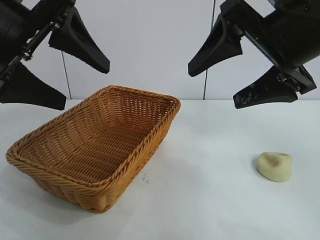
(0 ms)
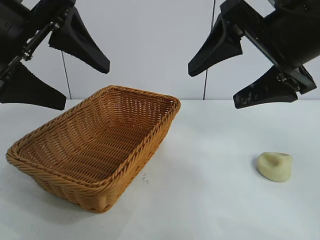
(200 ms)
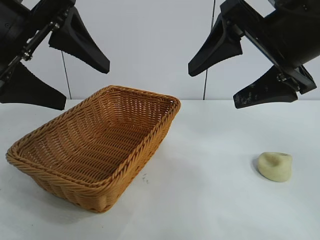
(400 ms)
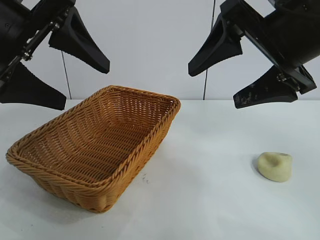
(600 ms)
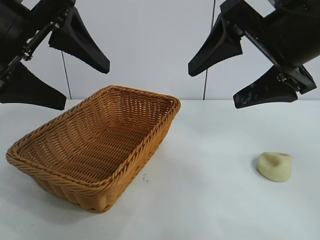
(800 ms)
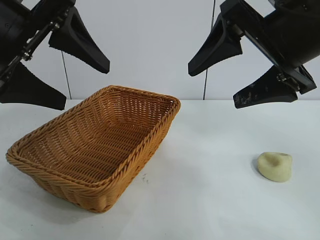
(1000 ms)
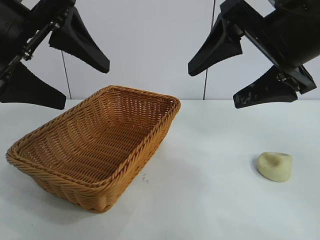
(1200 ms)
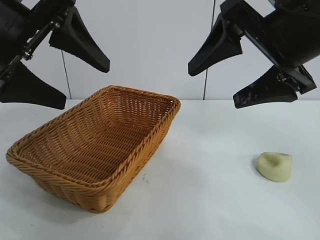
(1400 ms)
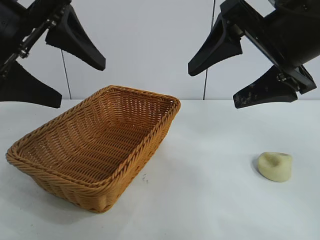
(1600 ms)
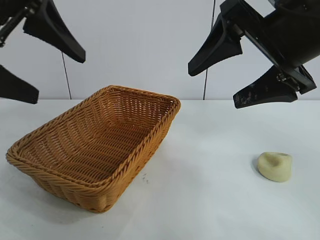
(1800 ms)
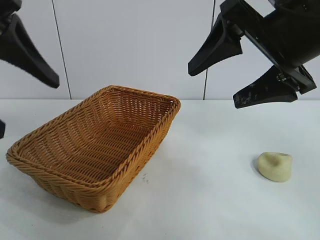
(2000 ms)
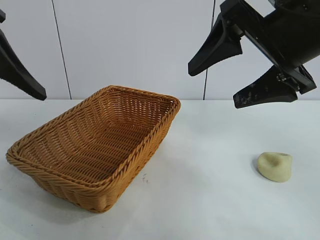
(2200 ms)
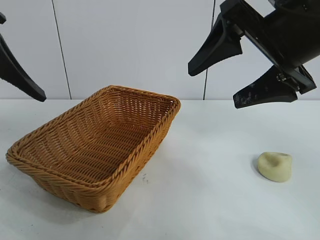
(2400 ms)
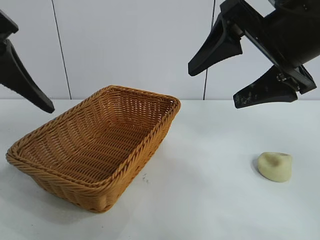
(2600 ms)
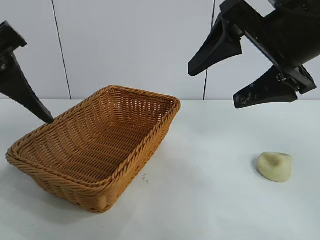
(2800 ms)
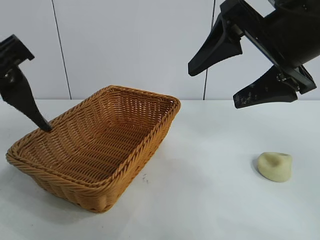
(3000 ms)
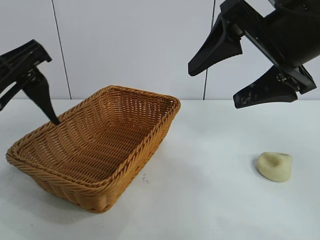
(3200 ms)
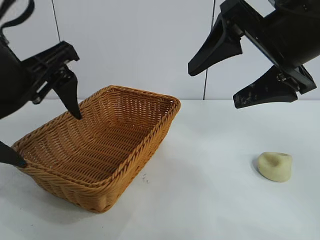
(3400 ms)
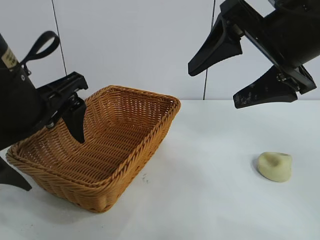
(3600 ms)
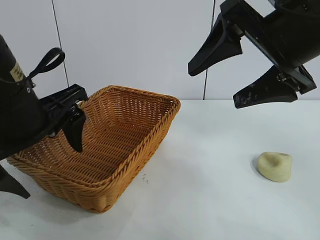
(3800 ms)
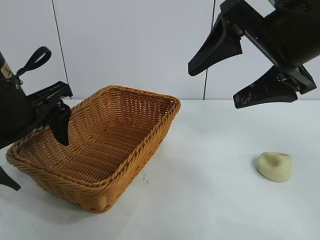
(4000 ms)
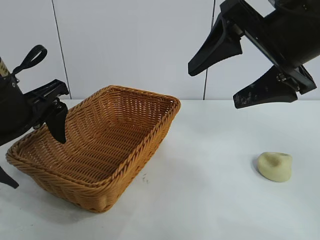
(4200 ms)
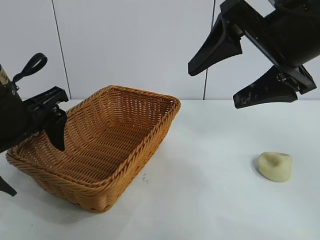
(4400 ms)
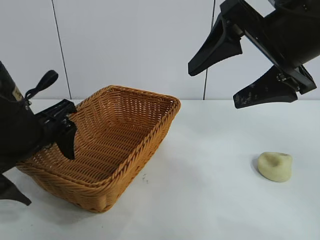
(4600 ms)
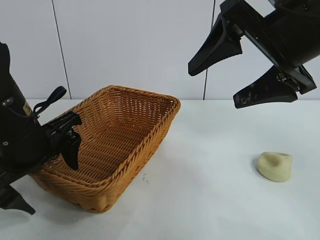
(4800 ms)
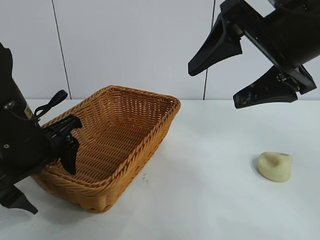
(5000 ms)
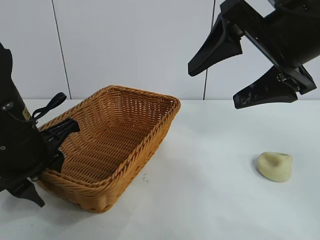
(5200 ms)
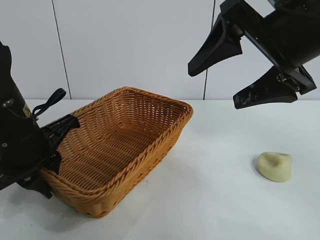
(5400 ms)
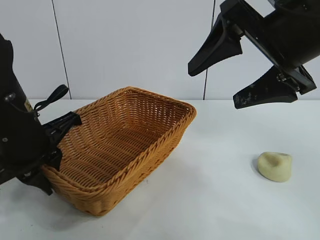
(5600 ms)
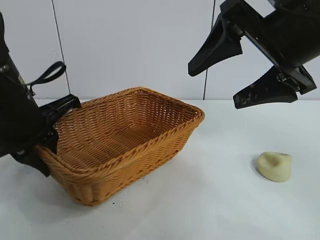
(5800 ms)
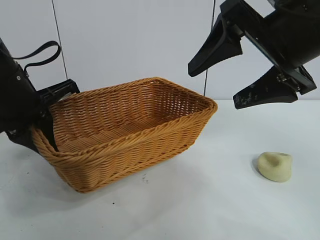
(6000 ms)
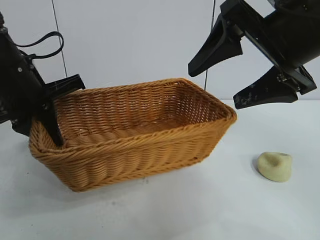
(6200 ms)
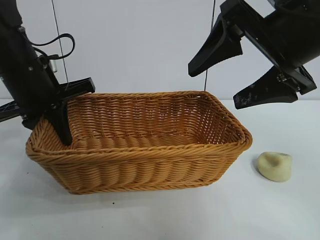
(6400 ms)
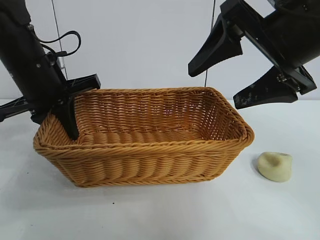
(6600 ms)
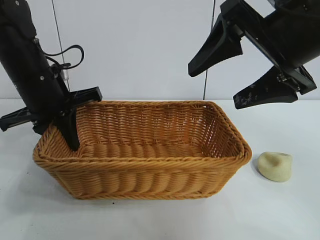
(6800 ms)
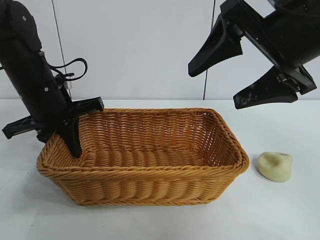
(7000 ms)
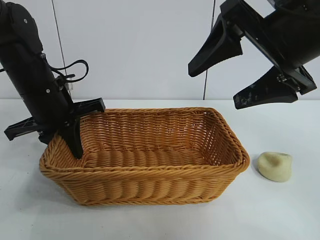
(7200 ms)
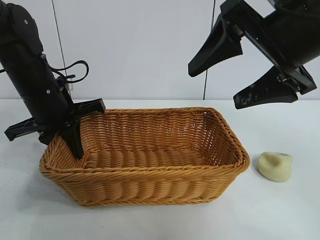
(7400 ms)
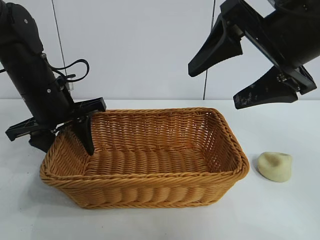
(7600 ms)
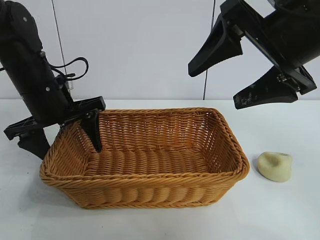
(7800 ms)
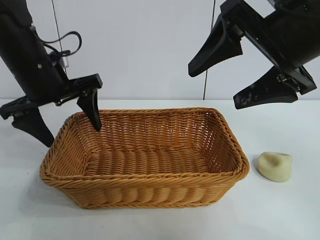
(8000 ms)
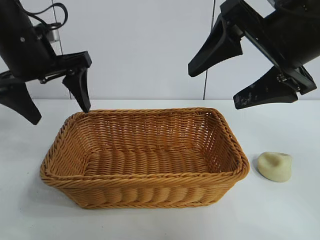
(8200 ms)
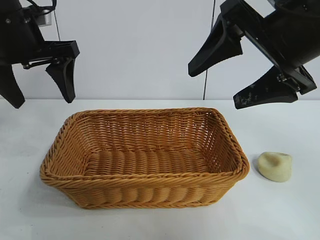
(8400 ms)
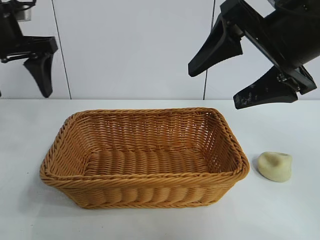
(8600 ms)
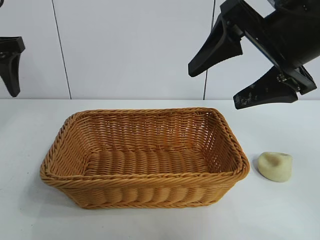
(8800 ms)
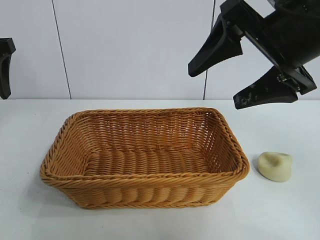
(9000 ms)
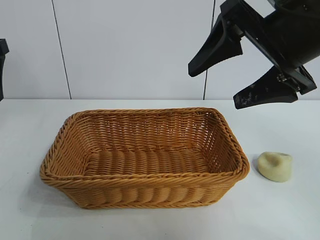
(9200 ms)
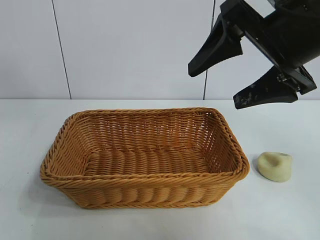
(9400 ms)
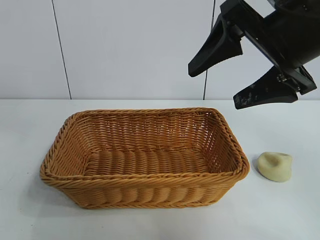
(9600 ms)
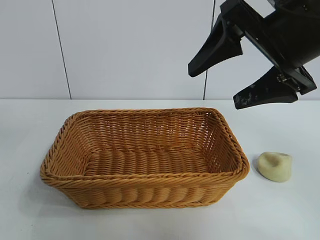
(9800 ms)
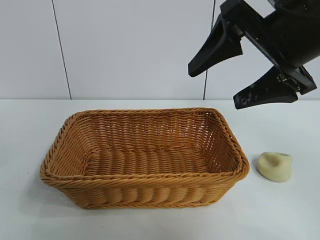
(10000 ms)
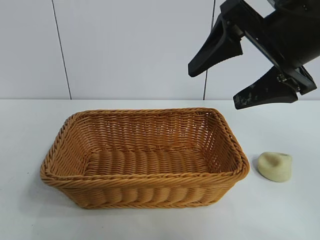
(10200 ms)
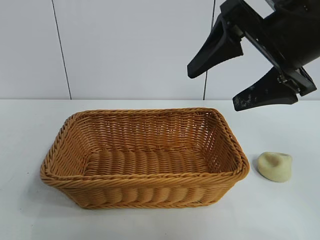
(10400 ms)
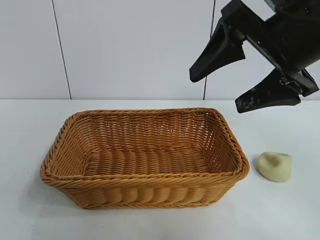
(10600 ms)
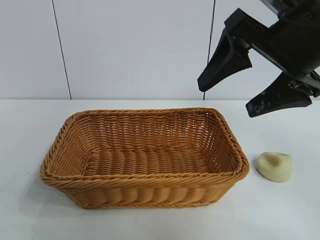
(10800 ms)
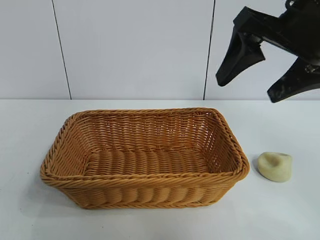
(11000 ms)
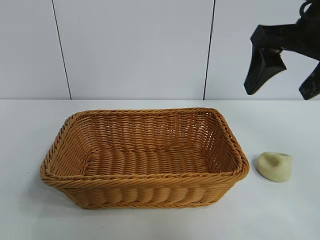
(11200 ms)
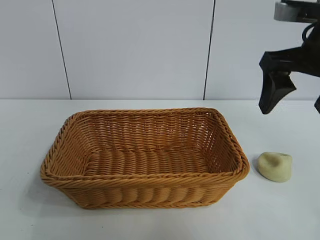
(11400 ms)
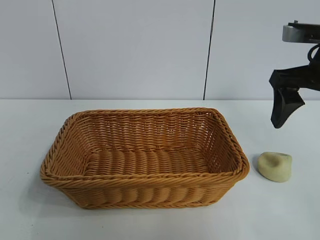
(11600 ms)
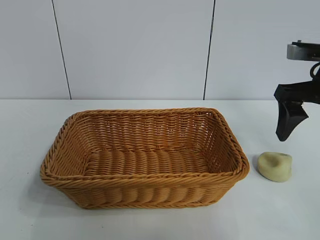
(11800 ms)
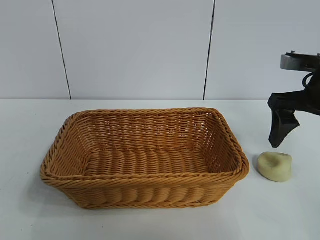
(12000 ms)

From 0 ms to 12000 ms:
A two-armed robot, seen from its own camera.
Task of the whole recording: pick up the egg yolk pastry and put it into the basket.
Step, from 1600 ms to 5200 ms: Grasp the basket with left gripper.
Step, from 5600 ms to 7800 ms: Place the basket in the center of view with left gripper.

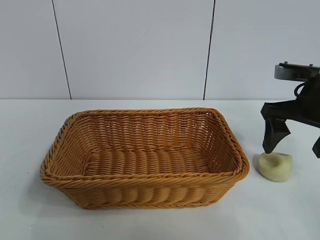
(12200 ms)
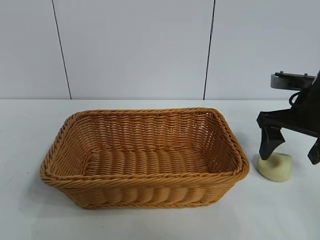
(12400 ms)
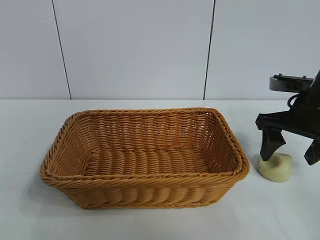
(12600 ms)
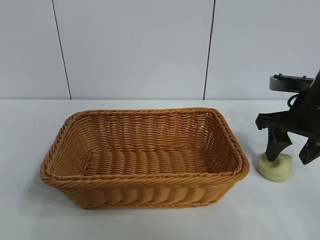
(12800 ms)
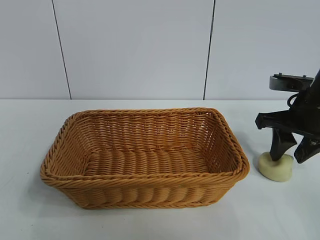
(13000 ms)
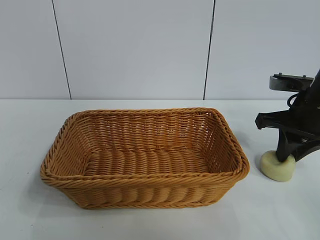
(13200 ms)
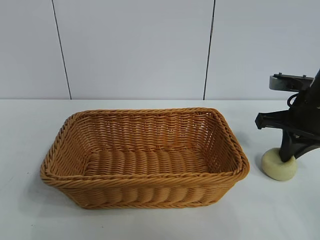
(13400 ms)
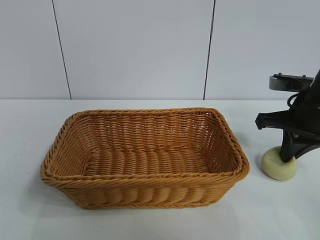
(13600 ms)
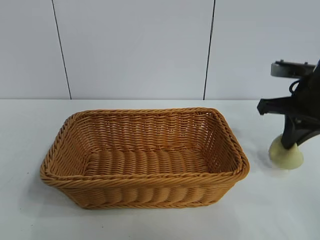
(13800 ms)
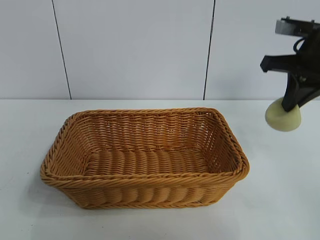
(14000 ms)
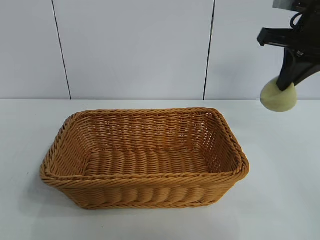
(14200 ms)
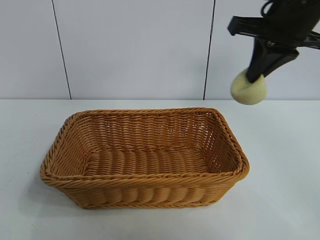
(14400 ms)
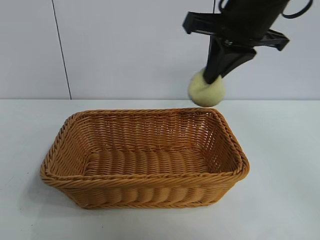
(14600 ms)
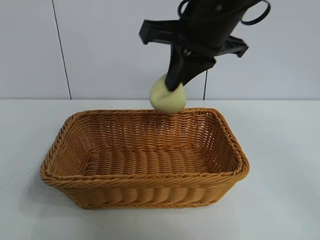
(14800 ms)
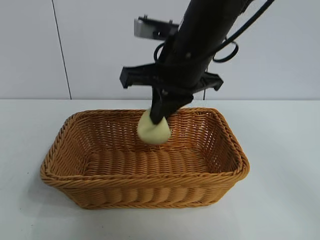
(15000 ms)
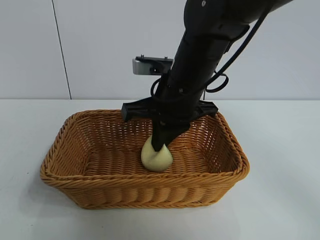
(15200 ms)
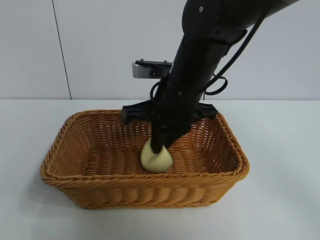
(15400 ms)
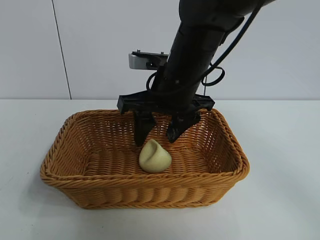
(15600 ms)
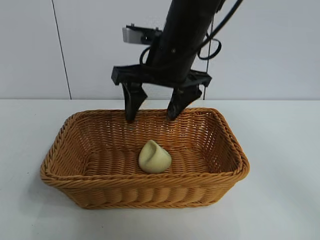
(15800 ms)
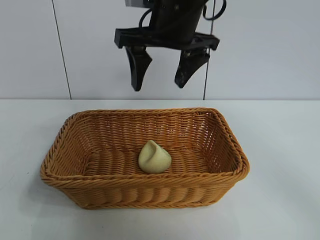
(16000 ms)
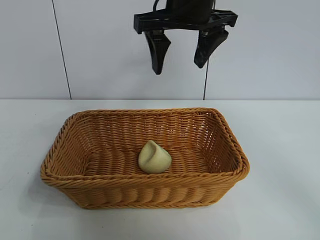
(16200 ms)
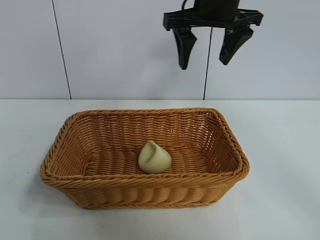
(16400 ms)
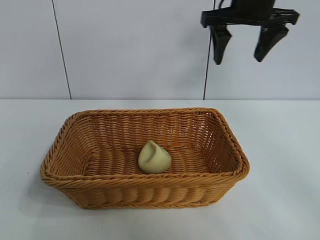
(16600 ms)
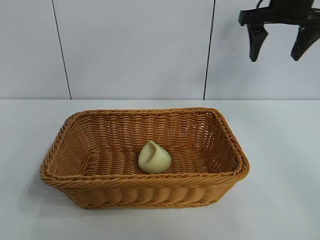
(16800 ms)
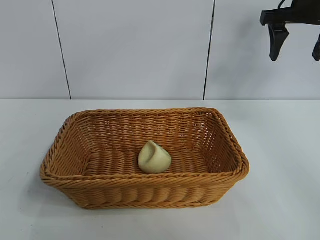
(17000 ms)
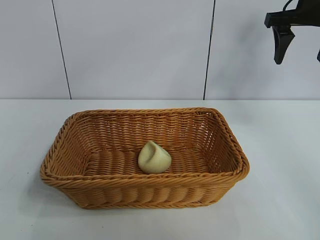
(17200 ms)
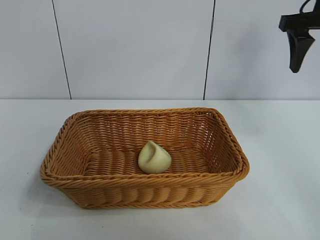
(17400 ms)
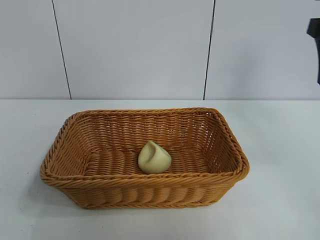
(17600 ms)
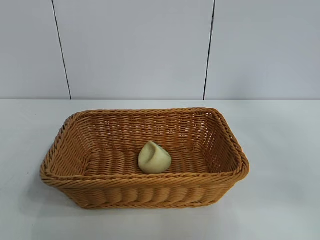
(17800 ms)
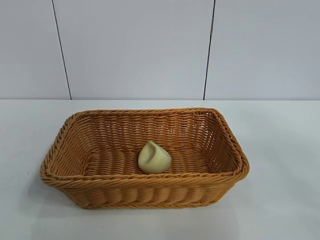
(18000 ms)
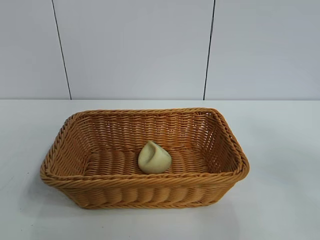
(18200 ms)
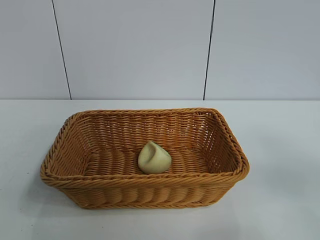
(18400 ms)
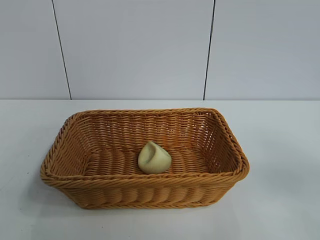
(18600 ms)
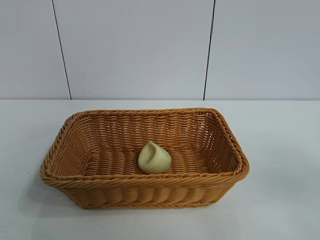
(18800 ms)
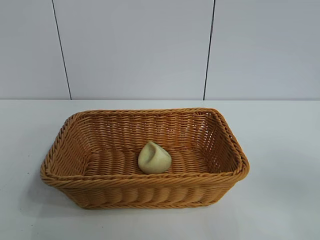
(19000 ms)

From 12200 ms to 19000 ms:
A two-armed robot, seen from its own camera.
Task of the whole recording: pick up the egg yolk pastry and put it into the basket.
Step, from 13400 ms to 15600 ms: Place the egg yolk pastry in the basket with right gripper.

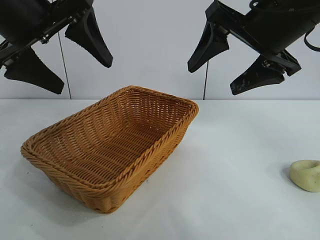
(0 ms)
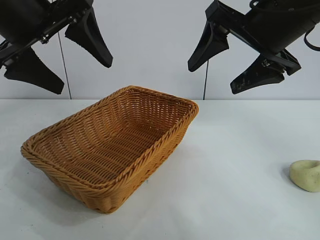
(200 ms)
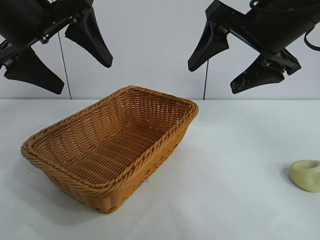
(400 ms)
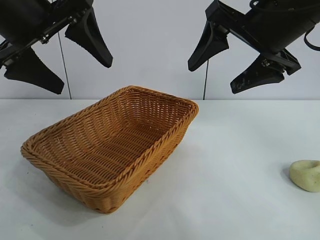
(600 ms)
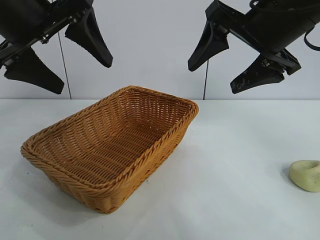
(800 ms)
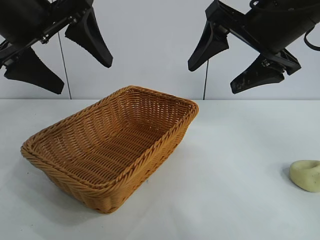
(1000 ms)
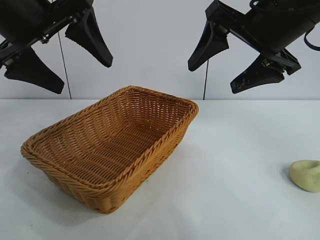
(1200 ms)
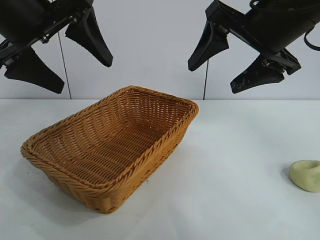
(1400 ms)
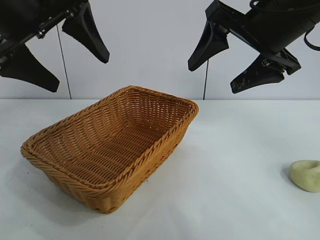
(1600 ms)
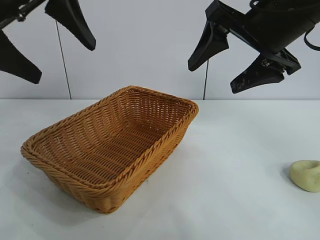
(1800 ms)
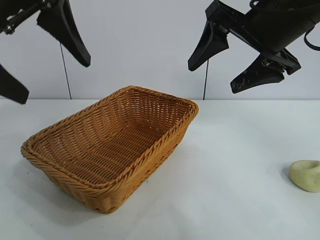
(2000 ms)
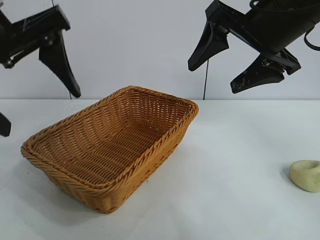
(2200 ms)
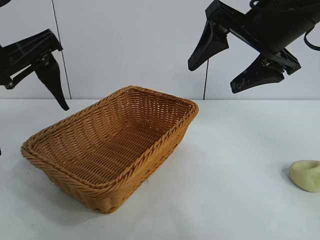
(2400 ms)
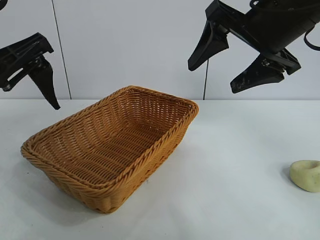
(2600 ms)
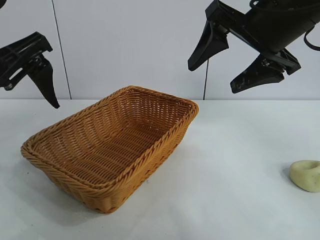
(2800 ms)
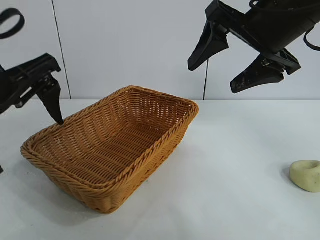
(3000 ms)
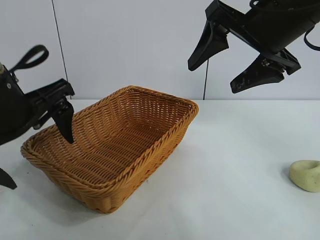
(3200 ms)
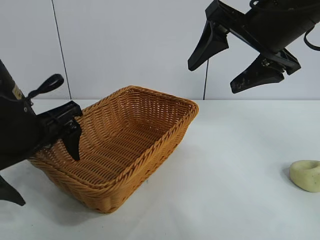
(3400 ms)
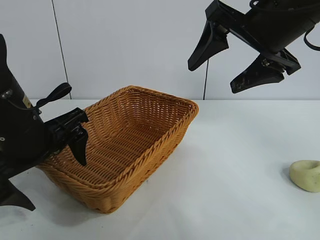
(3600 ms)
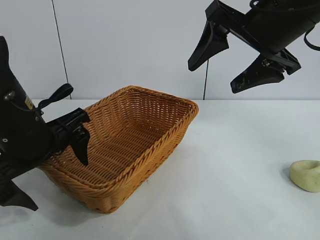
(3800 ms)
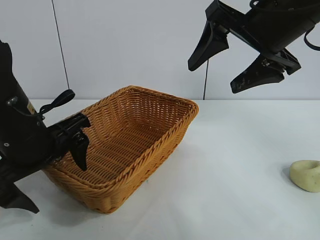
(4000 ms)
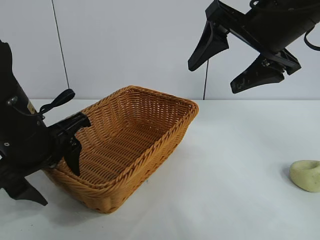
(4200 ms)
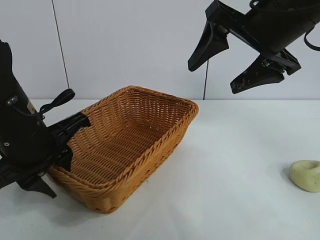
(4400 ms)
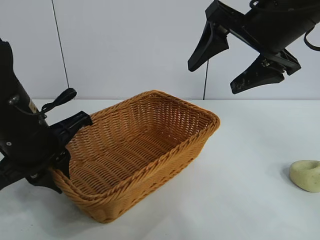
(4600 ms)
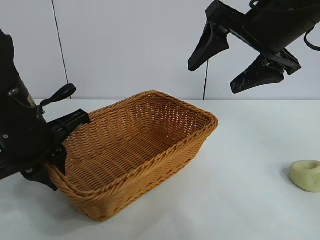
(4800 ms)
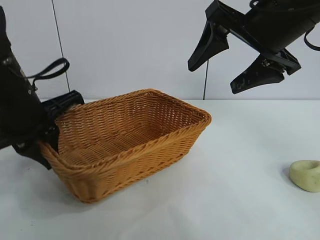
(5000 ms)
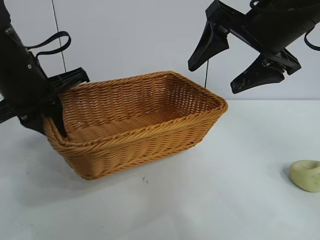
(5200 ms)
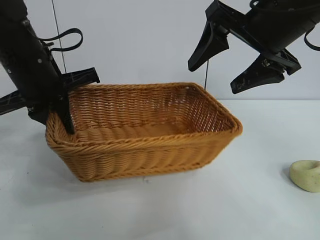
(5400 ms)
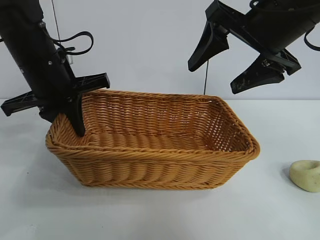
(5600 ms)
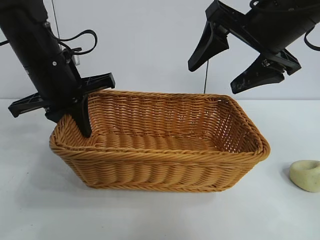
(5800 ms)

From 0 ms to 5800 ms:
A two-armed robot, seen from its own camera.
Task of the whole recording: pick up the egg yolk pastry and put it into the basket.
Step, from 0 ms to 4400 ms: Grasp the basket with left gripper.
